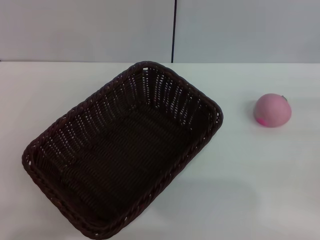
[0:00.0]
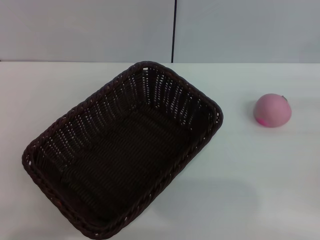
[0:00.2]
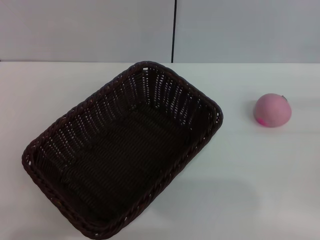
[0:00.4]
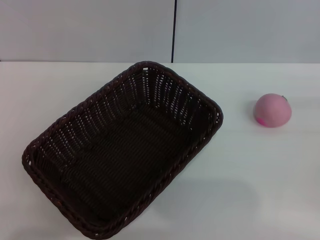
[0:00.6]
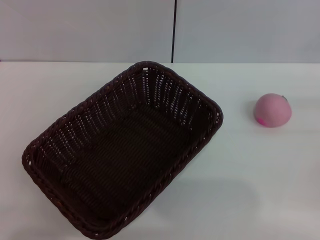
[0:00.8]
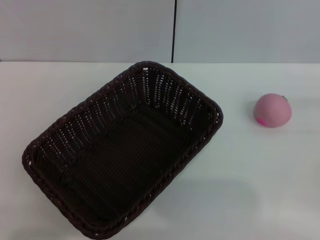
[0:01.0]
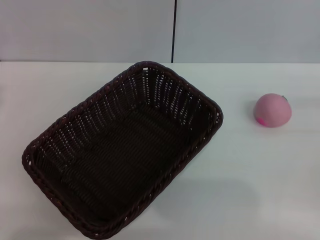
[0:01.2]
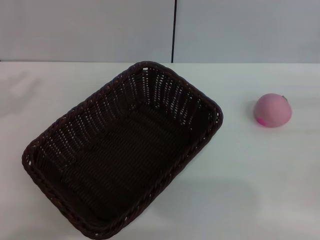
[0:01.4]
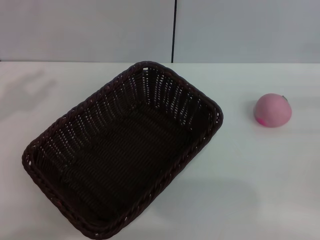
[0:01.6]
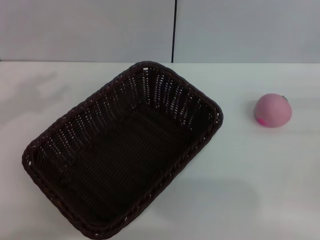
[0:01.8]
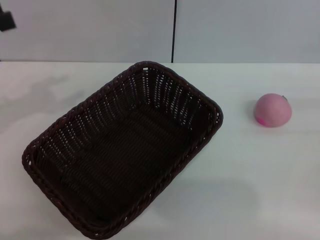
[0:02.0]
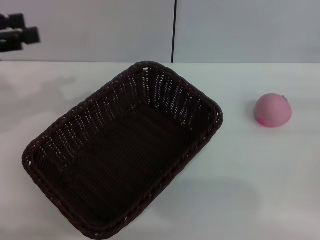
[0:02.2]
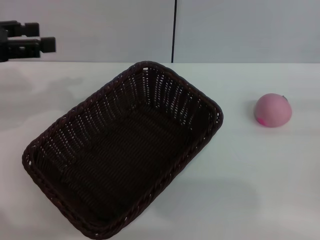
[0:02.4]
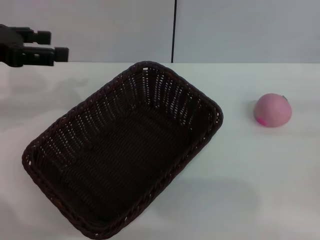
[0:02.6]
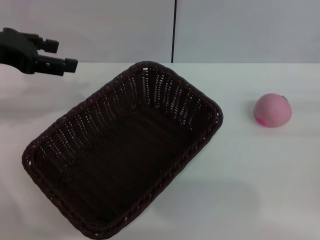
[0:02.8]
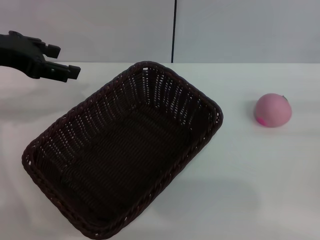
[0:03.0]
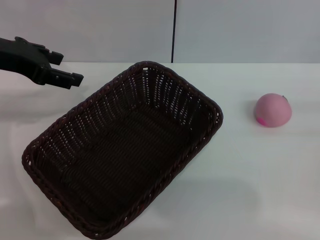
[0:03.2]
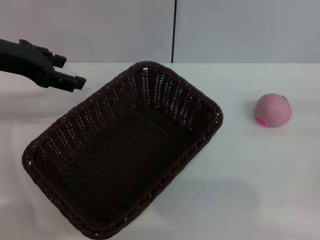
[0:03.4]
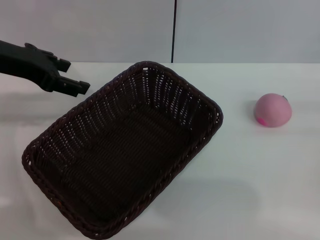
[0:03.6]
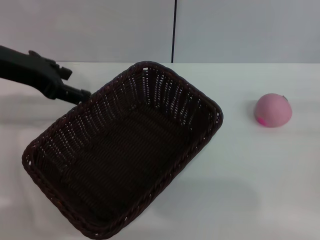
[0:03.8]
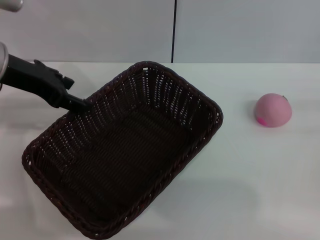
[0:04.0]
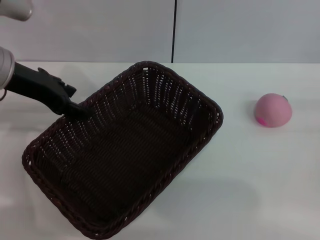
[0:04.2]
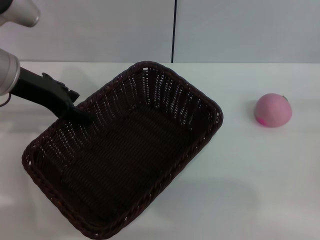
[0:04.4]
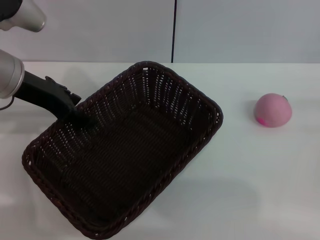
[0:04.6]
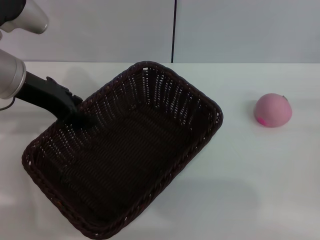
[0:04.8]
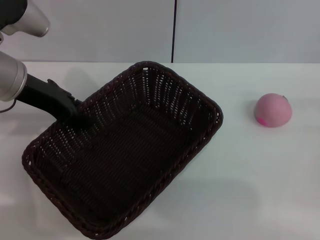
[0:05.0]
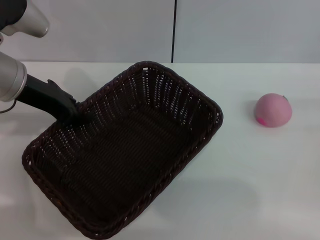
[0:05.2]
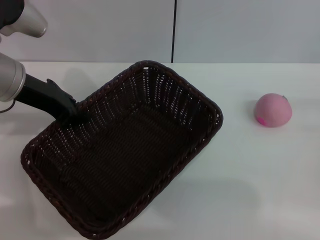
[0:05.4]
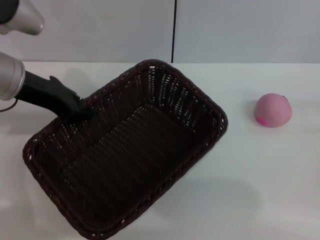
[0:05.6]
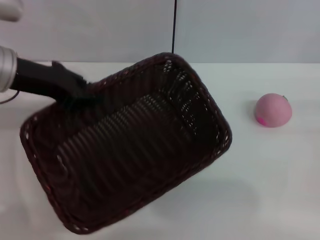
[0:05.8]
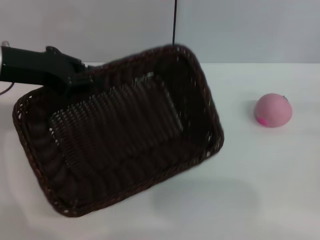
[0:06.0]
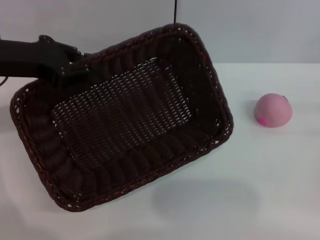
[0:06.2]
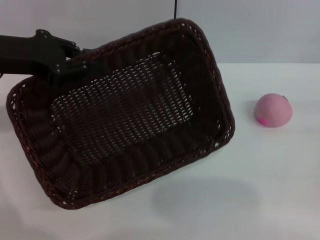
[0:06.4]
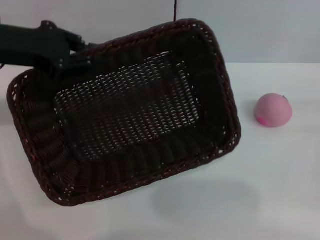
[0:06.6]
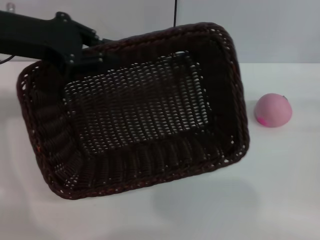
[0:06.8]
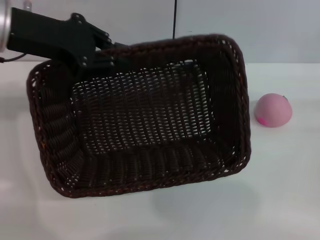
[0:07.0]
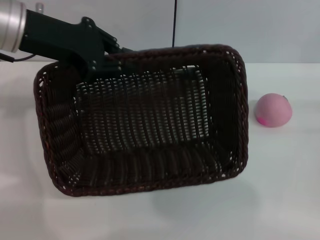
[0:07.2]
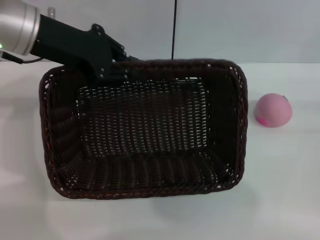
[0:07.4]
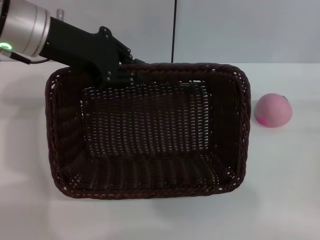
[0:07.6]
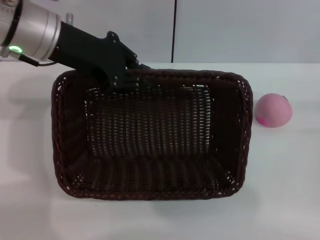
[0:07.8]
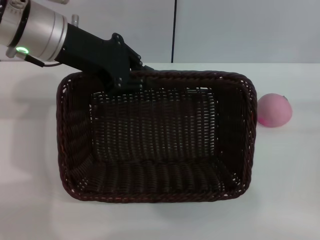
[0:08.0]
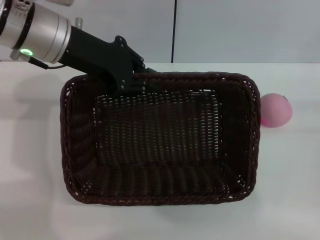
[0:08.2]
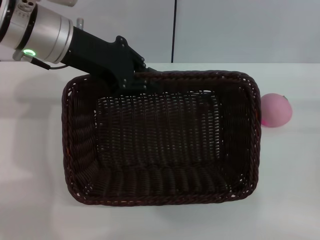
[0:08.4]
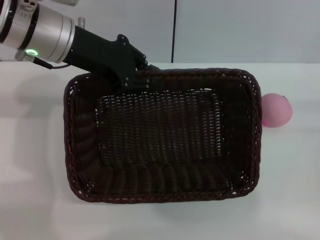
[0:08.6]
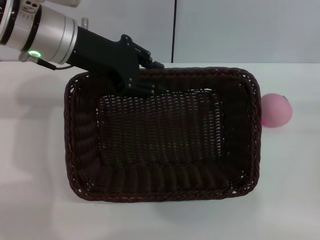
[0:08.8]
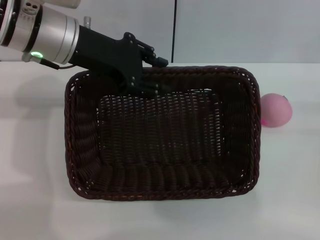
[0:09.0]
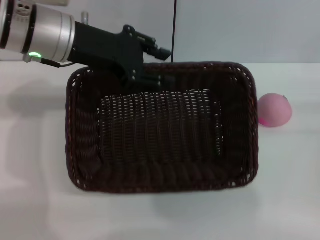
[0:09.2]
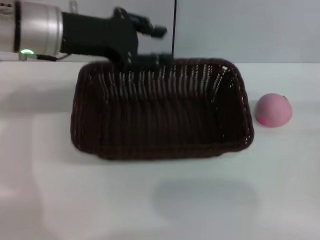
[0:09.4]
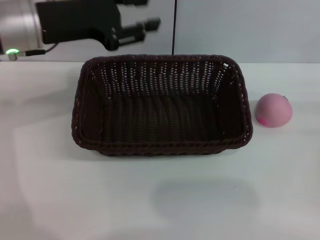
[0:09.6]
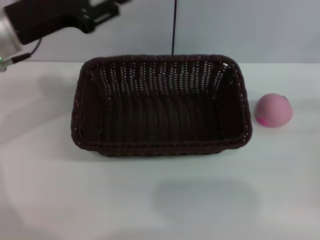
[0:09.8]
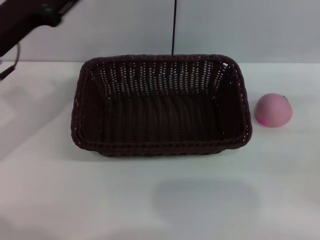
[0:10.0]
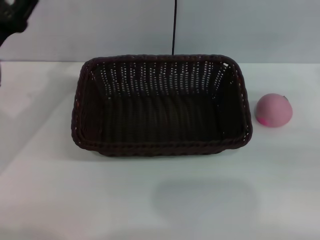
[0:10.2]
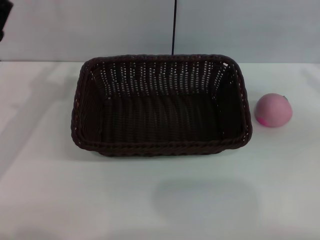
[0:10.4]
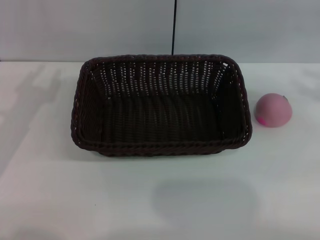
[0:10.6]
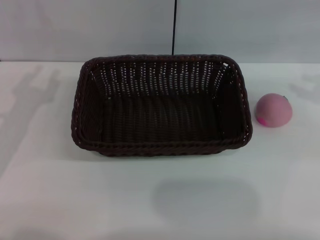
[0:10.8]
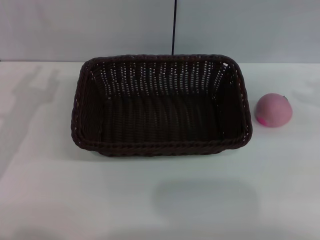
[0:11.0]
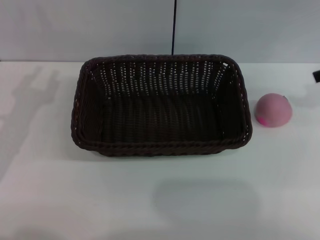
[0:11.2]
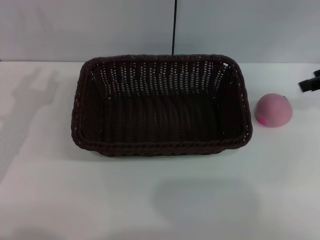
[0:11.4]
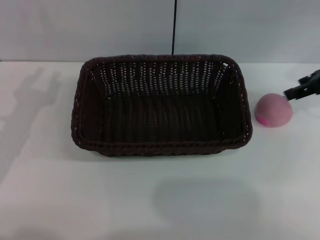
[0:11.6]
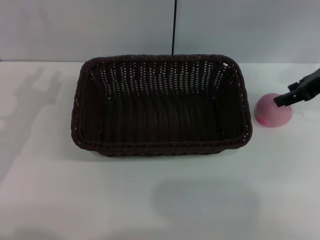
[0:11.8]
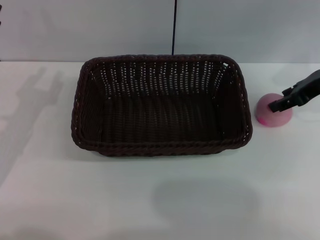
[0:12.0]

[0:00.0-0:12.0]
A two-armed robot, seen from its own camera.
Step, 0.0 to 5.8 s: Pick up the dark basket with the left gripper.
1.6 to 3.0 s: The left gripper shifts about 15 cm to the right and forward.
3.0 to 4.4 s: The left gripper shifts by about 5 cm.
4.4 to 6.0 s: The left gripper closes.
6.0 to 7.6 s: The left gripper moves to the right, roughly 5 cm.
7.6 to 9.0 s: The grippers stay close to where they were, moving slightly.
9.0 to 10.4 s: The left gripper shifts roughly 20 cm to the left, downward and backward, while the right gripper is displaced upward by approximately 10 cm.
10.4 to 12.0 s: The right gripper goes roughly 15 cm to the left and forward.

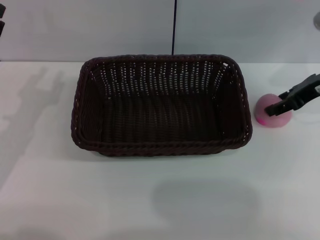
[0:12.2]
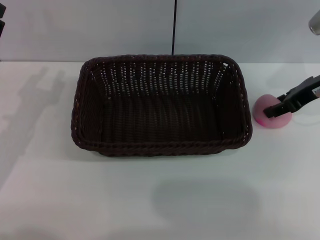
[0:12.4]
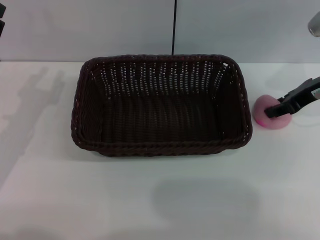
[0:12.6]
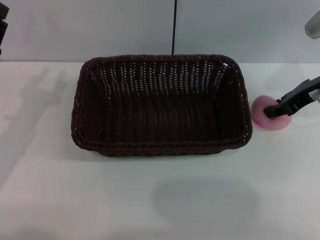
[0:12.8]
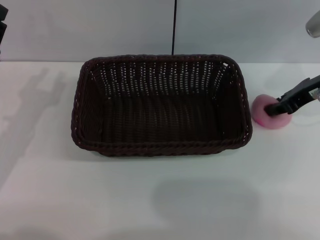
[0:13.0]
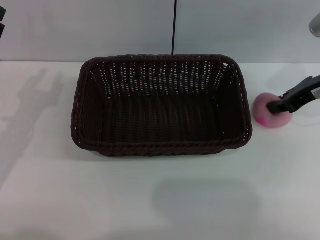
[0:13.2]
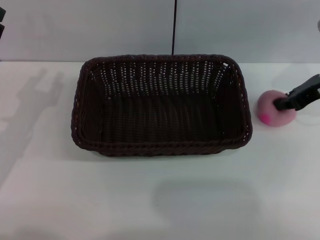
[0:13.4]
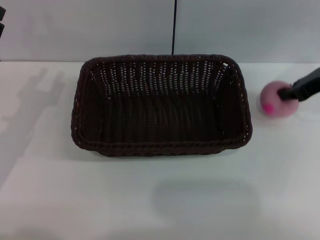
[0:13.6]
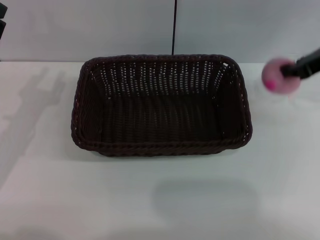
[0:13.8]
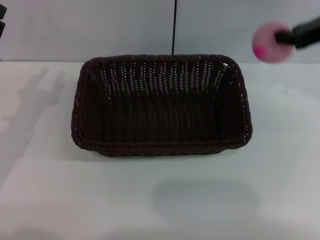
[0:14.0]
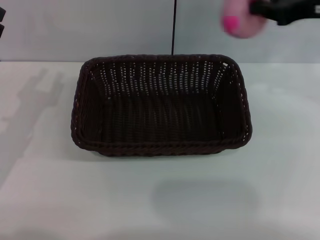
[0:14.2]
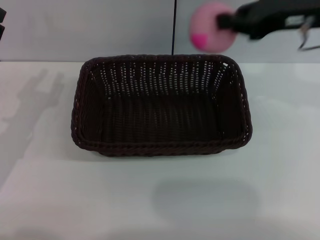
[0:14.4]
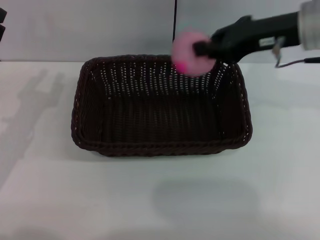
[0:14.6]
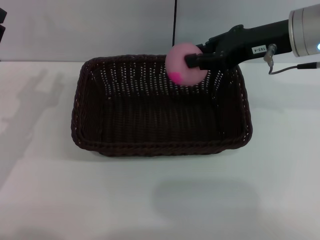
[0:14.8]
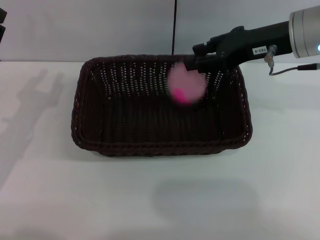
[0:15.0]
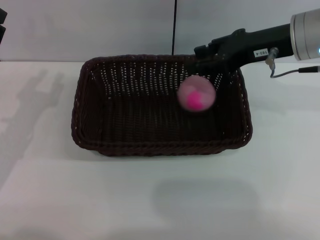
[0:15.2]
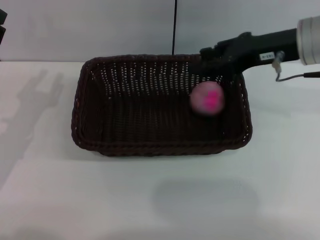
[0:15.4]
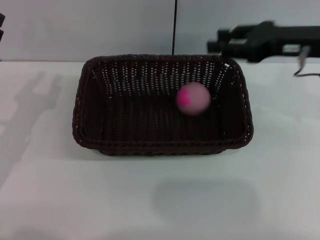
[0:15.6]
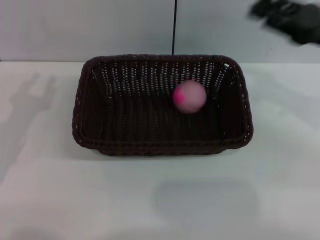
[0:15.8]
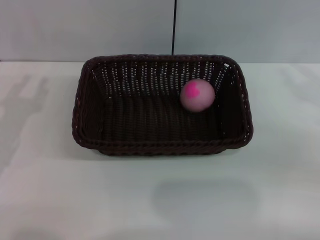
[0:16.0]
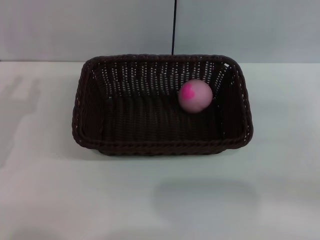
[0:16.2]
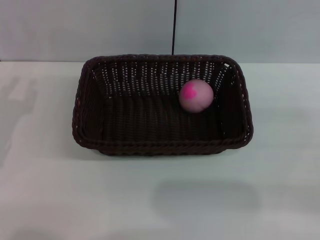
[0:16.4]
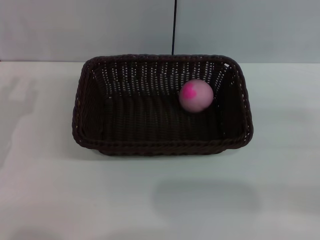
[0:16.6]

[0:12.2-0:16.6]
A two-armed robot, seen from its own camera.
12.2 to 13.6 s: The right gripper closes its fingers.
13.6 to 15.2 s: The right gripper travels to the left by approximately 10 cm, and opens its fingers.
15.2 to 16.6 s: The right gripper moves to the right, backward and downward, roughly 25 cm.

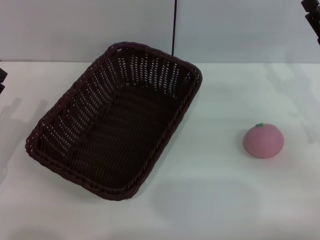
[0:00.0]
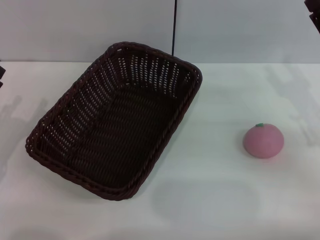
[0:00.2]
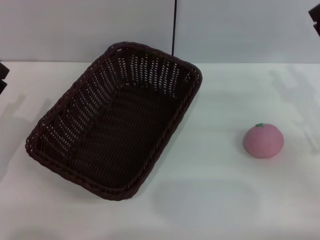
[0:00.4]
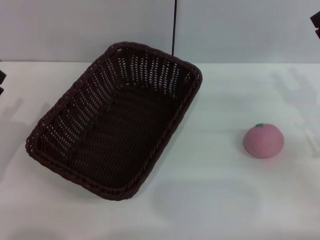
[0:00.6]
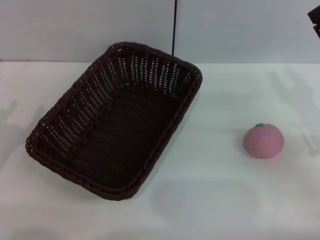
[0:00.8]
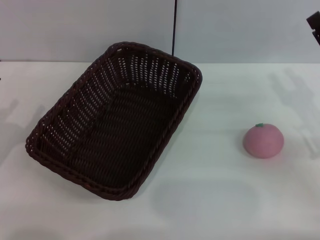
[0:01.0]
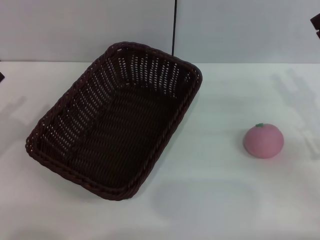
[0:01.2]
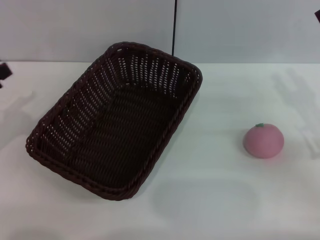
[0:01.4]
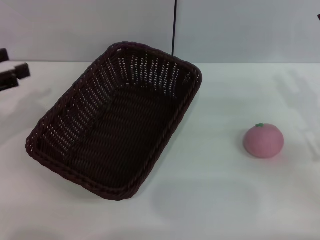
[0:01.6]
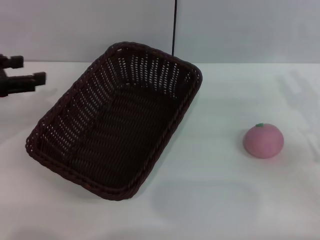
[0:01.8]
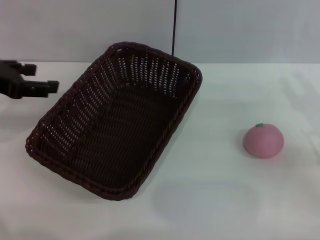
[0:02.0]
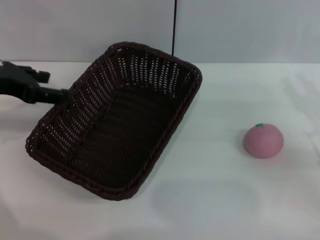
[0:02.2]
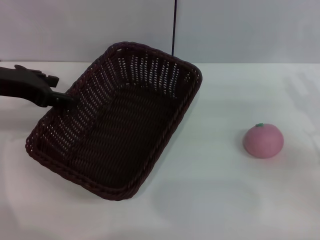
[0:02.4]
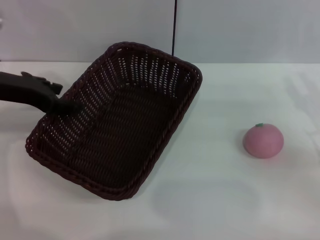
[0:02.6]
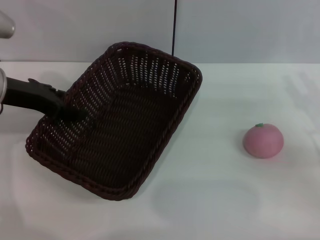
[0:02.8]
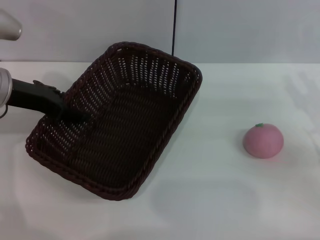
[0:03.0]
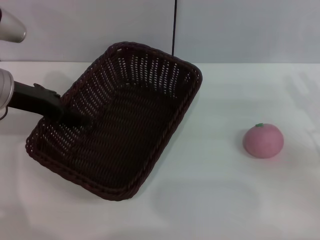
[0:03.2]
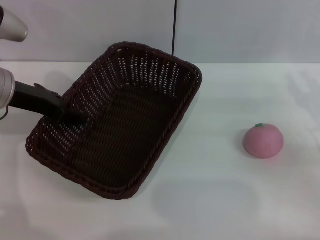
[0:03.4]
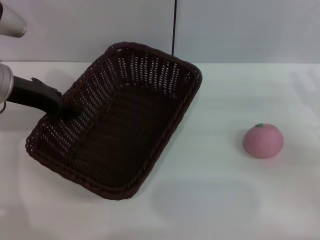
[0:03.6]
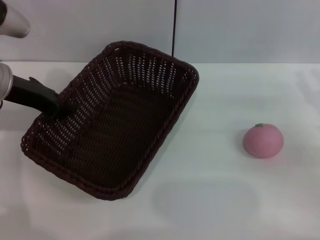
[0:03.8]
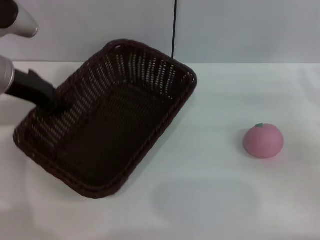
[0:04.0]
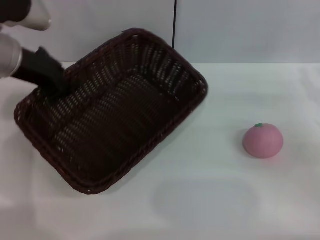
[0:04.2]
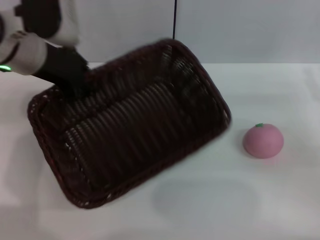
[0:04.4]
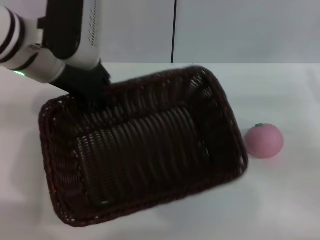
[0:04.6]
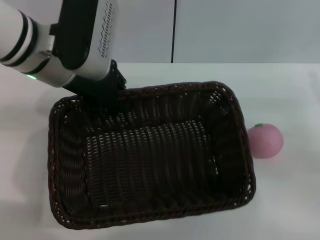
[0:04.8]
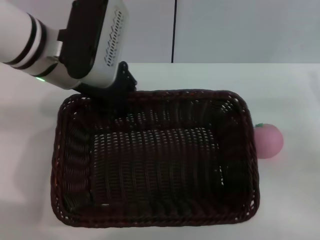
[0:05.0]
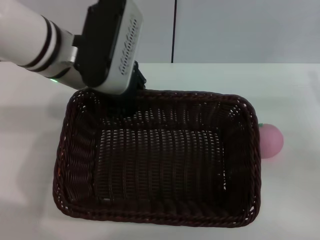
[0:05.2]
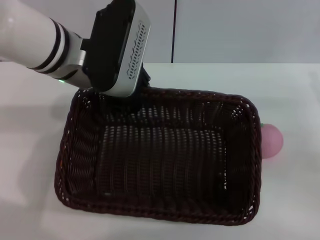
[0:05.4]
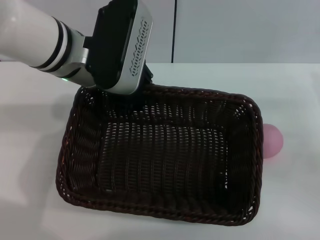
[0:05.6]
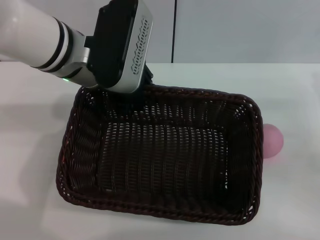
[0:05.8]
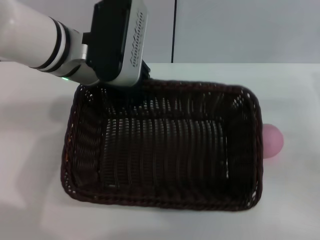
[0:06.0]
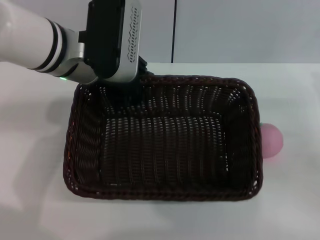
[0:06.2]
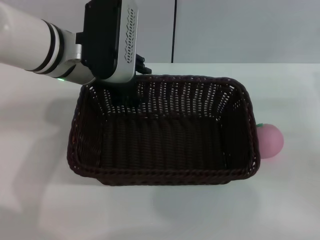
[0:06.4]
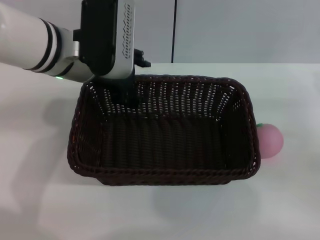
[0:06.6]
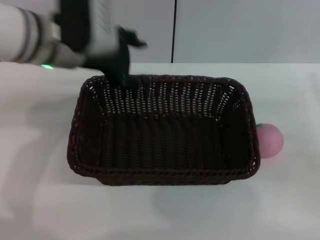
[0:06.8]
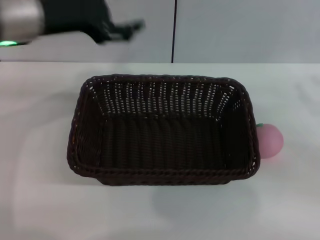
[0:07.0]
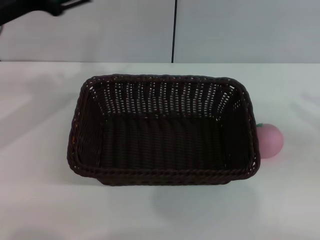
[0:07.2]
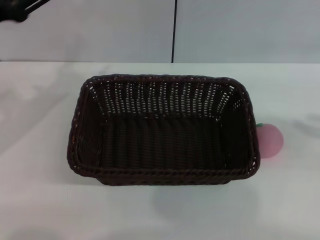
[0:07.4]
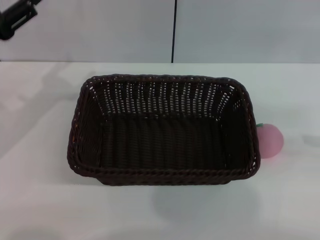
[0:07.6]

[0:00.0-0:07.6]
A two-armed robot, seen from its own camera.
Step, 0.0 to 4.0 s: Pick up the dark basket with the left gripper.
Step, 4.2 to 6.6 s: Place the dark basket in the center of view with the right gripper.
0.0 to 1.6 s: The left gripper goes about 10 cm upward.
1.6 to 3.0 s: The left gripper goes approximately 15 cm to the right and forward.
3.0 to 4.6 s: The left gripper shifts approximately 10 cm to the right, and closes up.
6.0 to 7.6 s: The left gripper goes roughly 20 cm to the left, and opens; the right gripper is displaced upward and to the right by some 15 cm.
